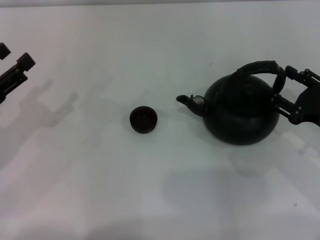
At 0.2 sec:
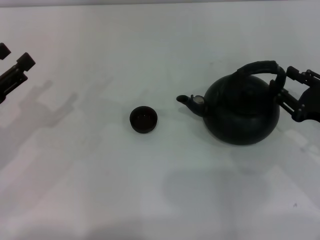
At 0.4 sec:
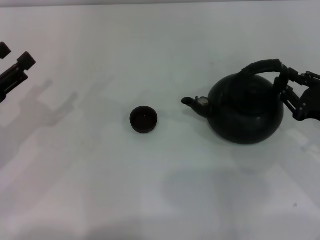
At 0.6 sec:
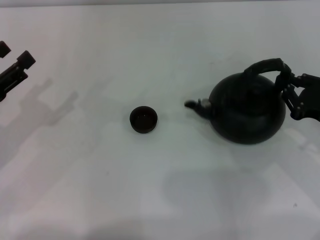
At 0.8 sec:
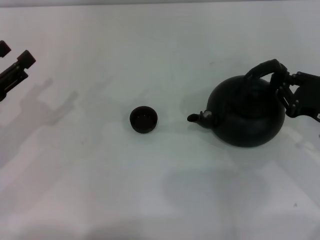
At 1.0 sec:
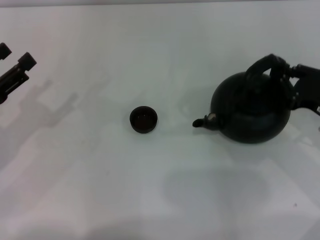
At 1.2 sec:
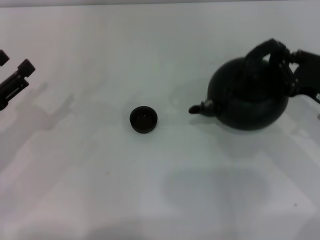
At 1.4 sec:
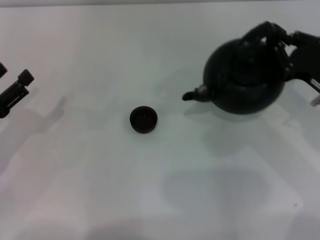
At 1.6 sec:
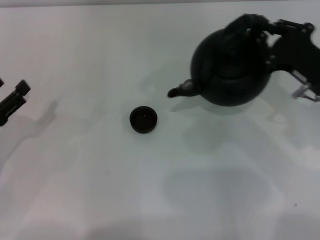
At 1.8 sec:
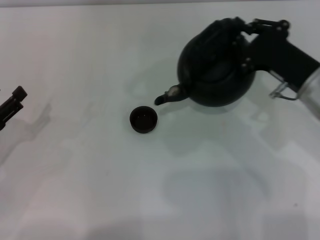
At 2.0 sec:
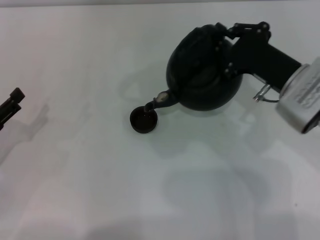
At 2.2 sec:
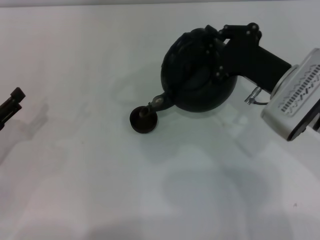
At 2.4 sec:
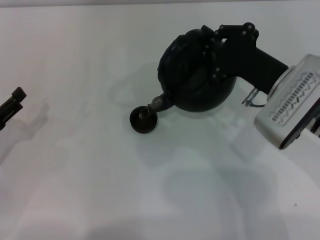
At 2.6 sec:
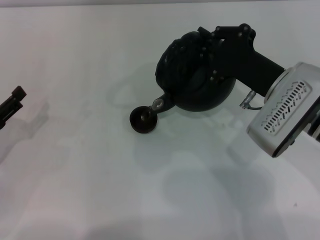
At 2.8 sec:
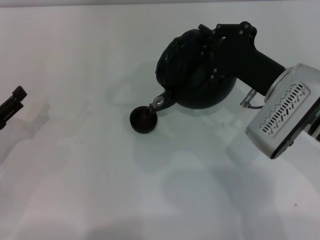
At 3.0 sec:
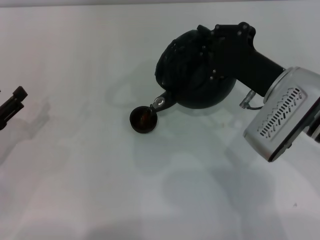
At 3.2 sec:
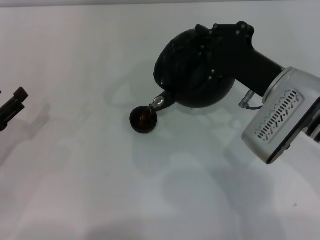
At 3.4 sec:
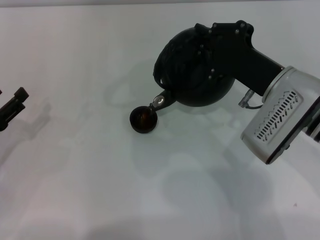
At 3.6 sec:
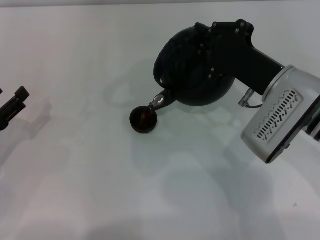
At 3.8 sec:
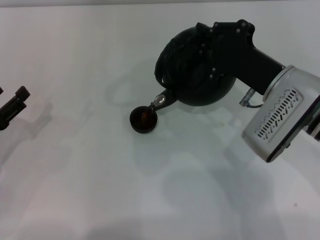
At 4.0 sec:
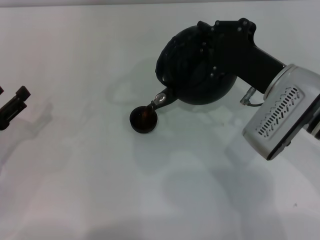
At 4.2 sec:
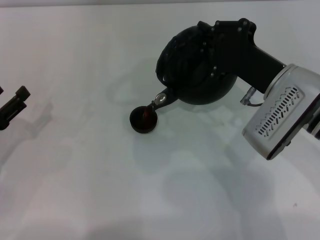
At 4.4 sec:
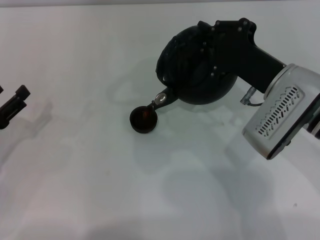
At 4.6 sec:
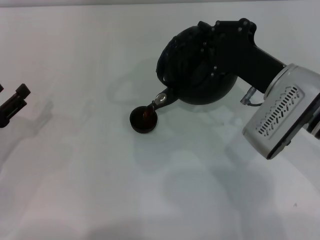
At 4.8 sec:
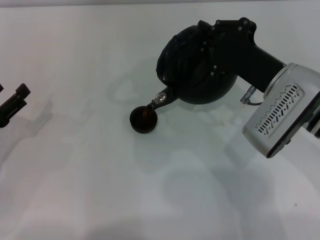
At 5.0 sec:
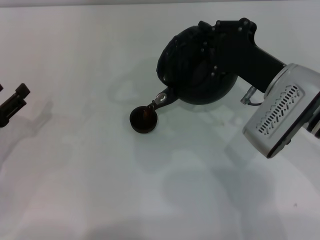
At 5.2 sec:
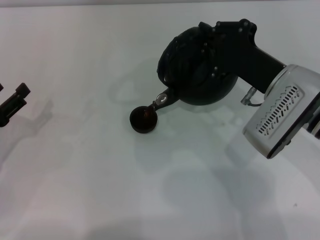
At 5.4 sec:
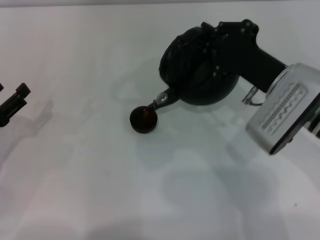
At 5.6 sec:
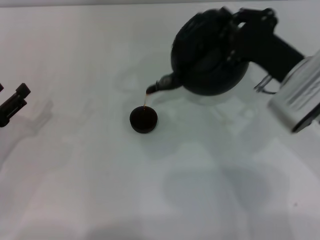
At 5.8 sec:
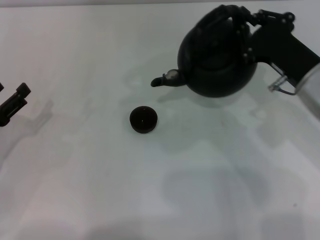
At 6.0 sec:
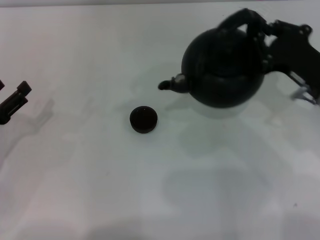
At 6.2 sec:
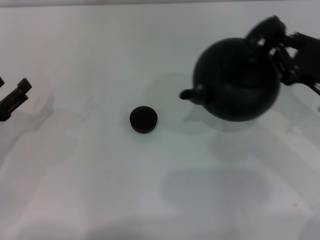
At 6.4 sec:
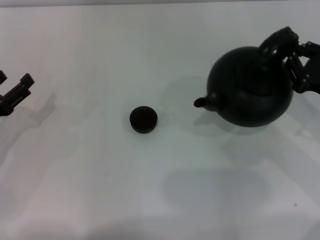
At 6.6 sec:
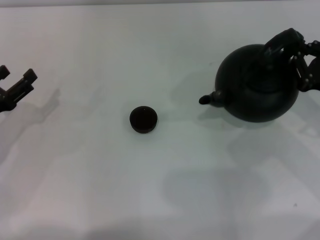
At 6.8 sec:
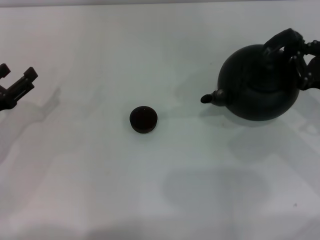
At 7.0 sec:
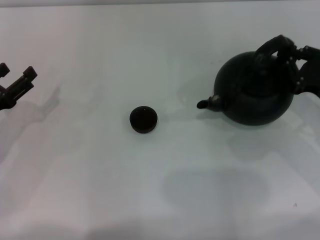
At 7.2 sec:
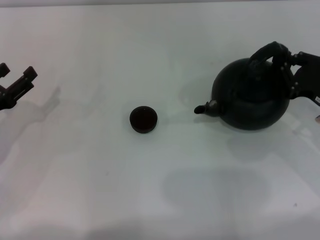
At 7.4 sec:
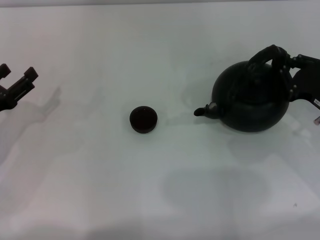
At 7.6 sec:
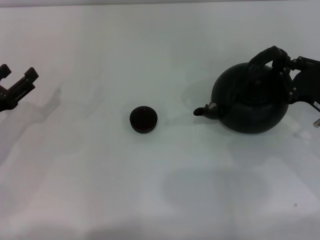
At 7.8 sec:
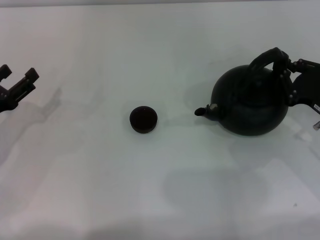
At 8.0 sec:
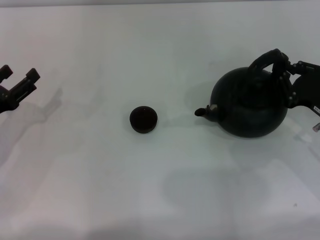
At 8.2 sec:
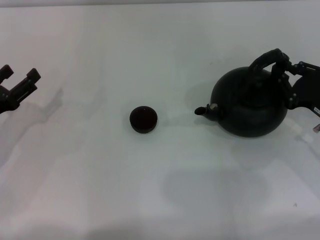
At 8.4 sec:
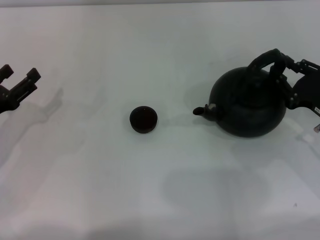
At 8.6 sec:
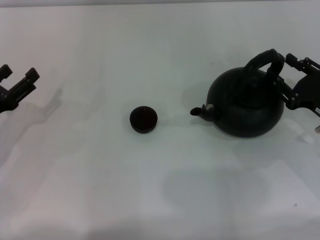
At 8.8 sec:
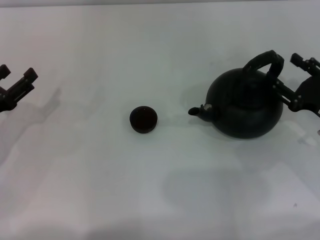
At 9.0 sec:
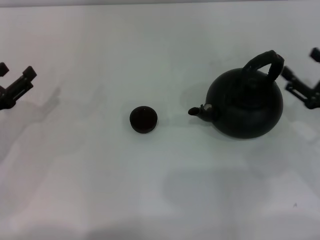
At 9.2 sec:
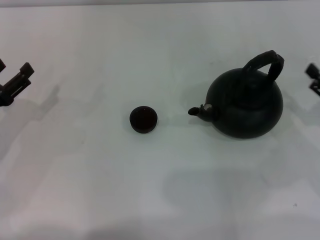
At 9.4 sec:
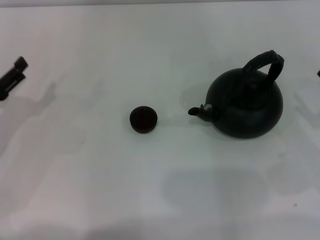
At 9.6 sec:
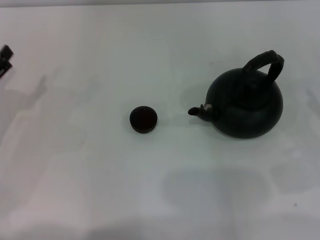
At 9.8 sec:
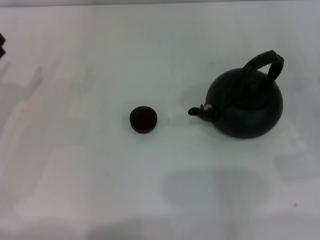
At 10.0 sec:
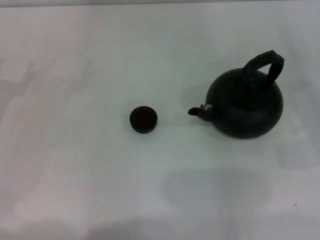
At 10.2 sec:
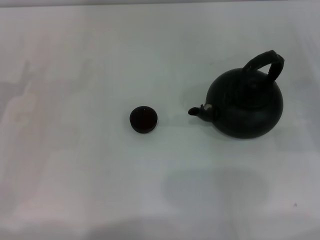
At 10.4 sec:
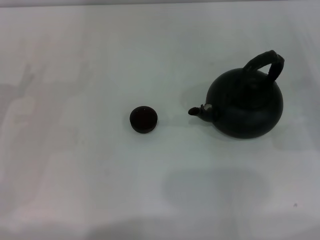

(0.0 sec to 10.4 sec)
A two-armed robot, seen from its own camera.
Task of the whole recording: Grasp the handle of the teapot with one hand and pour tea into the teacup.
Step, 1.8 sec - 6.0 sec: Pour tea into the teacup with the right gripper.
Step, 6.2 sec - 8.8 sec: Put down the teapot with the right gripper.
0.0 sec - 1.4 sec: The right gripper ends up some 5 cm from where it was, and closes its fingers.
1.4 sec - 3.0 sec: The right gripper shifts some 10 cm to the left.
3.0 sec - 4.4 sec: Neither gripper changes place.
4.4 sec - 6.0 sec: The right gripper heads to the right, covering about 5 cm.
6.0 sec - 7.4 sec: The right gripper goes roughly 5 cm to the right and downward.
7.4 sec - 9.0 sec: The right gripper opens its fingers.
9.0 sec - 10.4 sec: The right gripper heads to the right, covering some 5 cm.

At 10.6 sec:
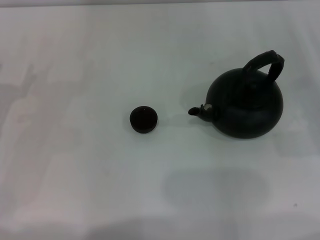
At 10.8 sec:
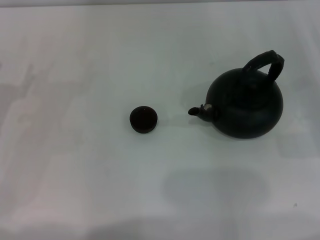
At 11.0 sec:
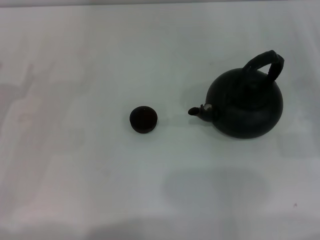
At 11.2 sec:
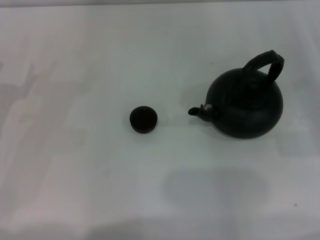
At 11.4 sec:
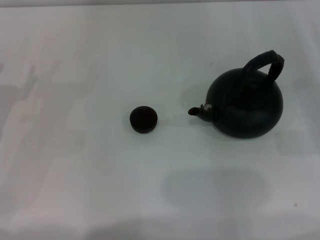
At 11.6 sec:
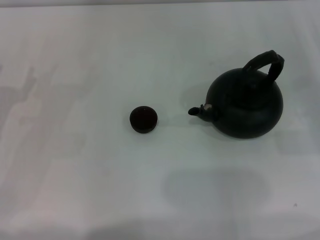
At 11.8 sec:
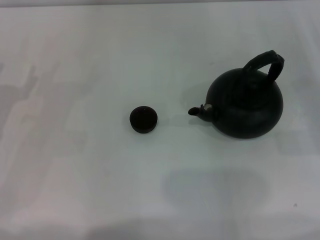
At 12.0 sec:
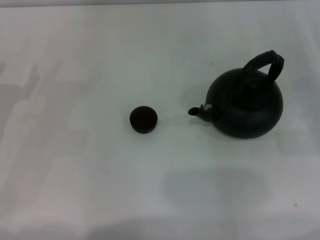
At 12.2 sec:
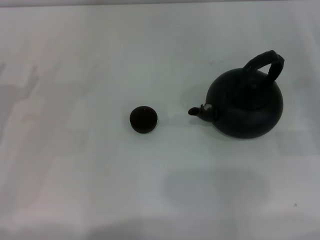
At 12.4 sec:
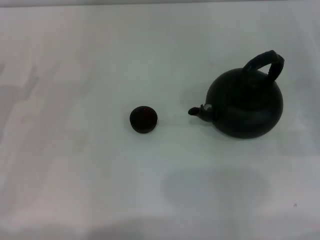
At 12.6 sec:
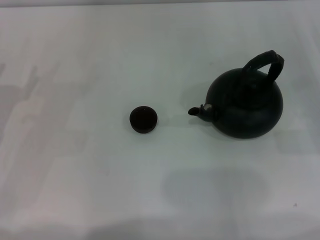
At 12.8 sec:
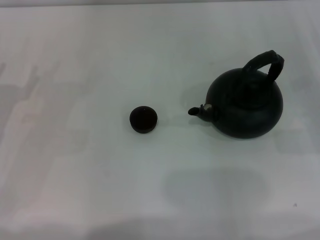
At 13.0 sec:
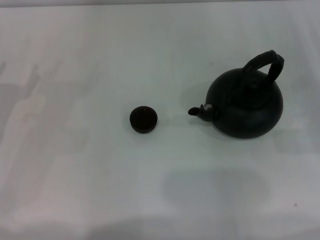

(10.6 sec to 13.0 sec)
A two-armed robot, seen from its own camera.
Task of the whole recording: Grasp the handle of the teapot with one hand and pour tea into the teacup.
10.6 sec - 13.0 sec: Both grippers stay about where they are.
